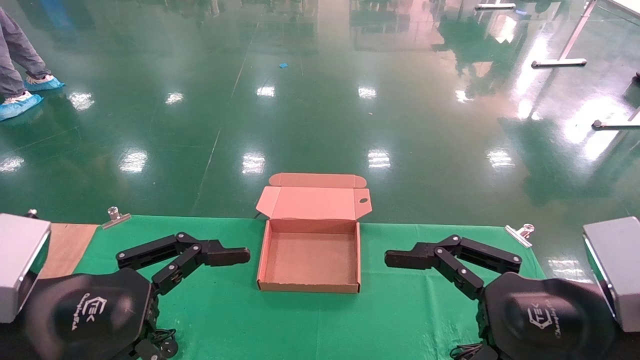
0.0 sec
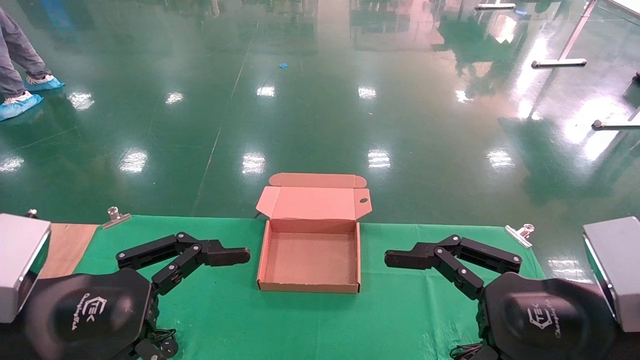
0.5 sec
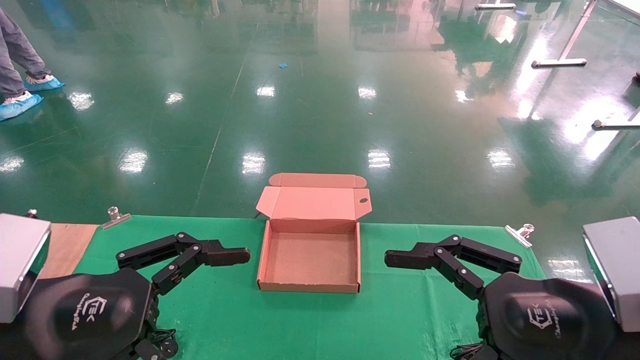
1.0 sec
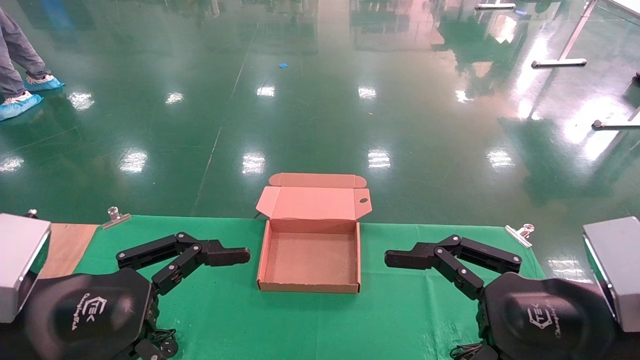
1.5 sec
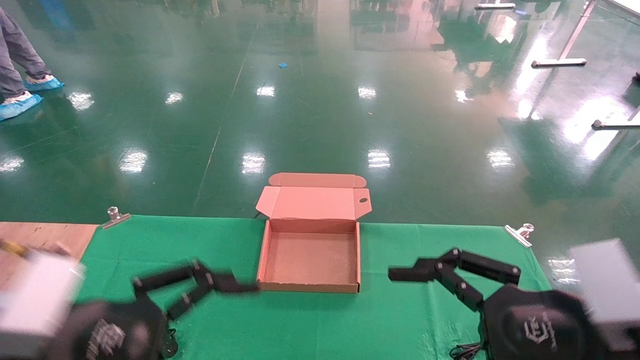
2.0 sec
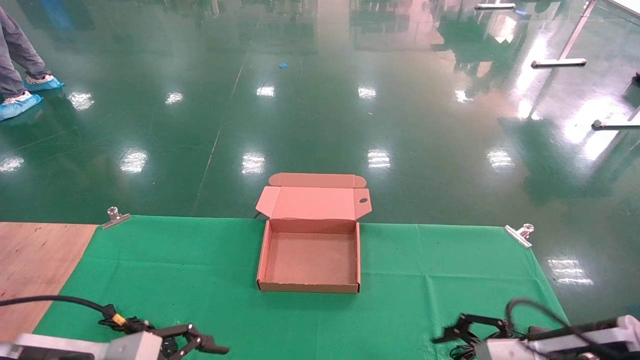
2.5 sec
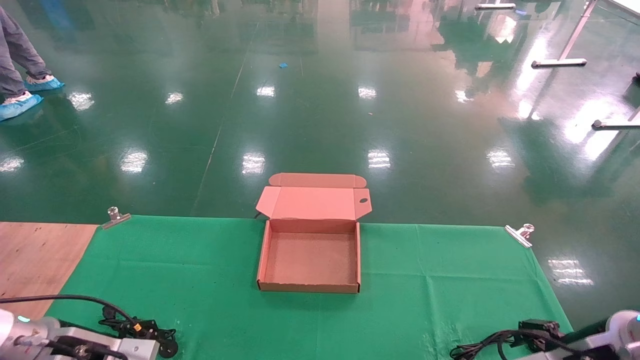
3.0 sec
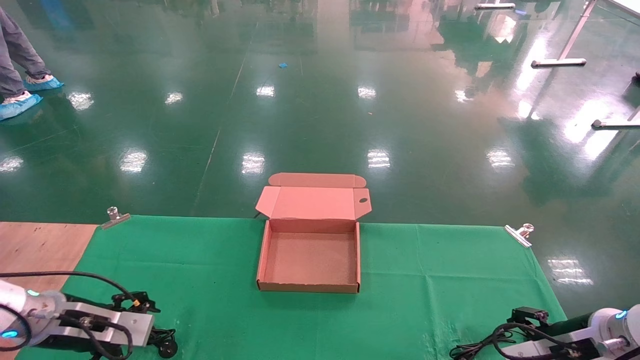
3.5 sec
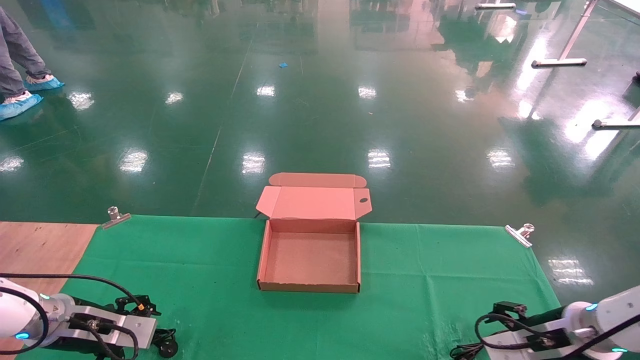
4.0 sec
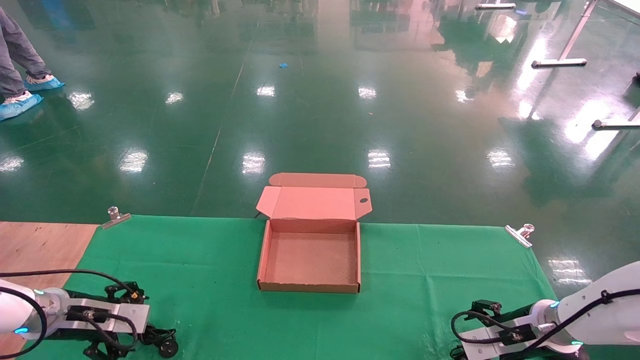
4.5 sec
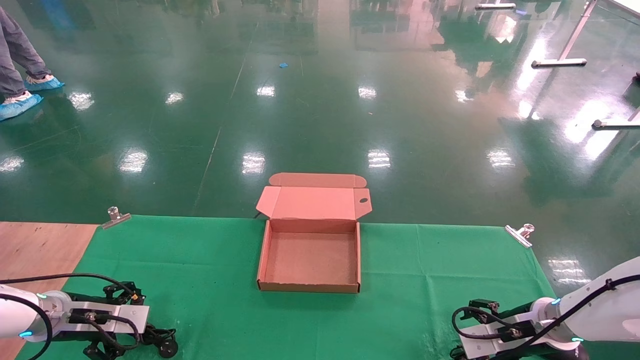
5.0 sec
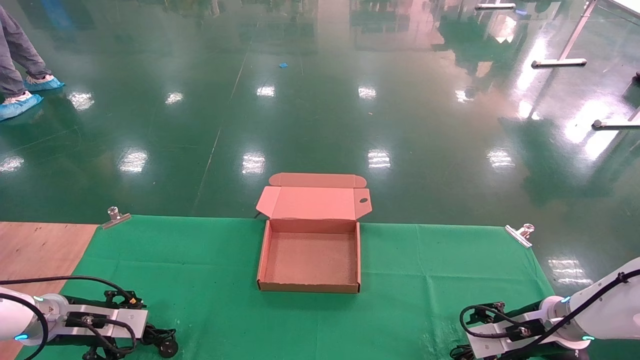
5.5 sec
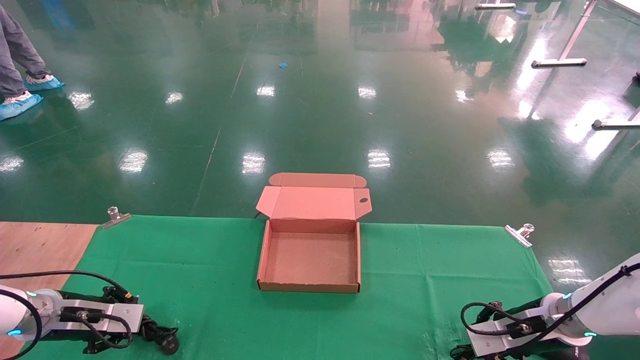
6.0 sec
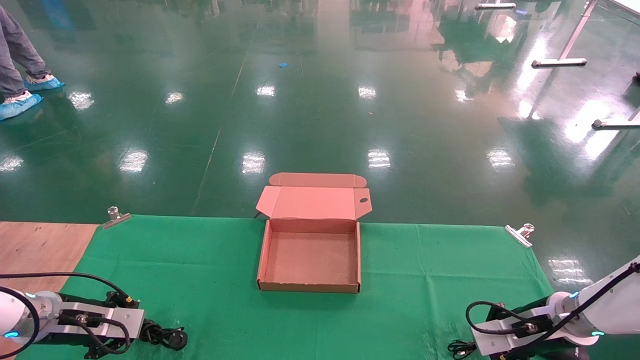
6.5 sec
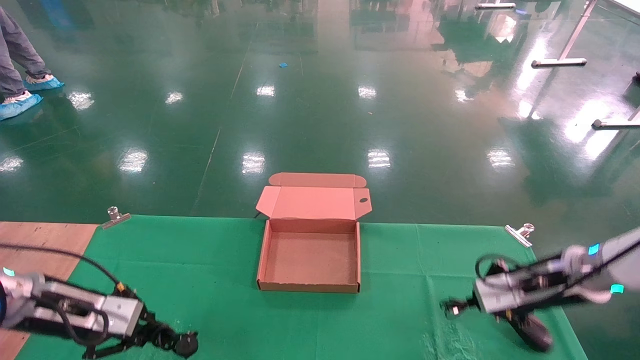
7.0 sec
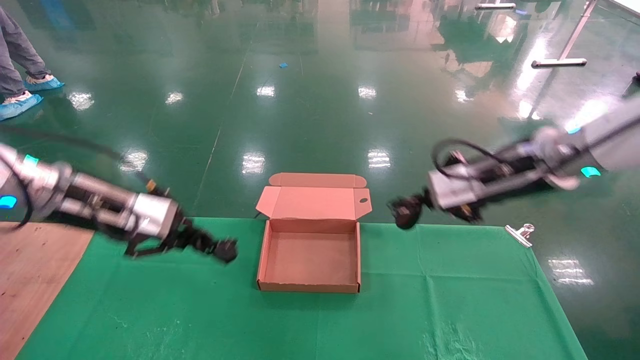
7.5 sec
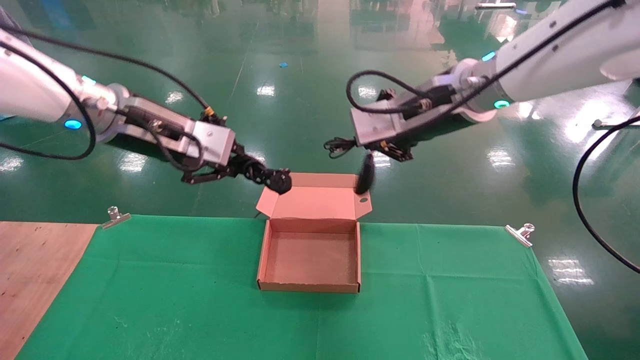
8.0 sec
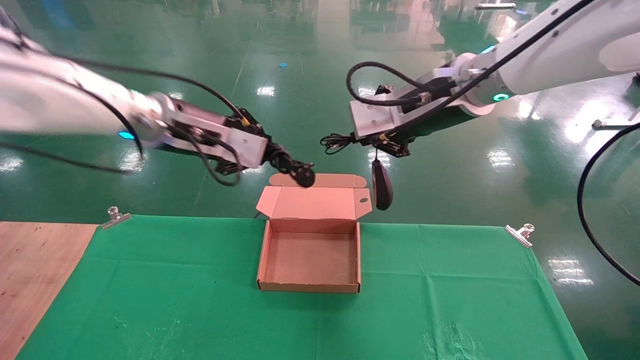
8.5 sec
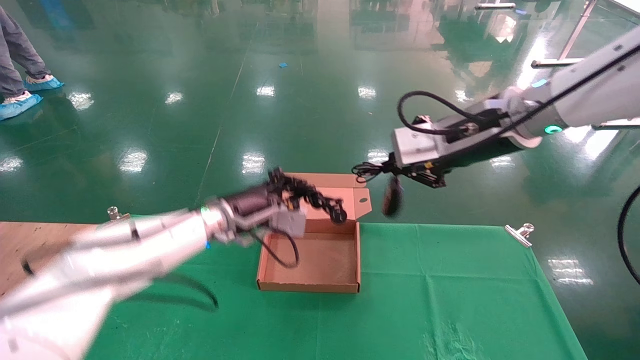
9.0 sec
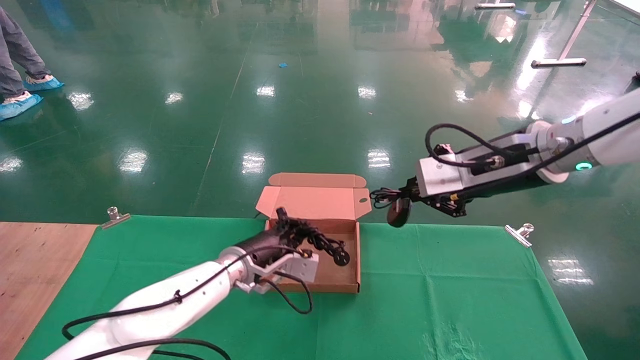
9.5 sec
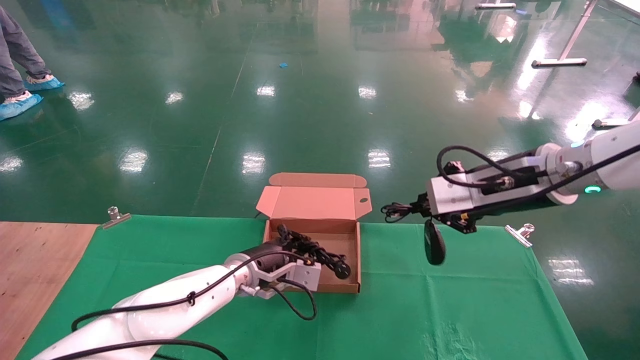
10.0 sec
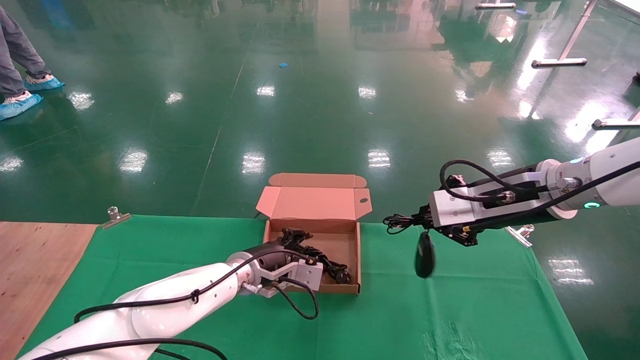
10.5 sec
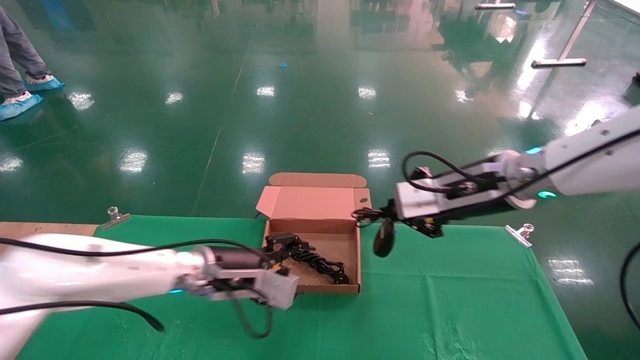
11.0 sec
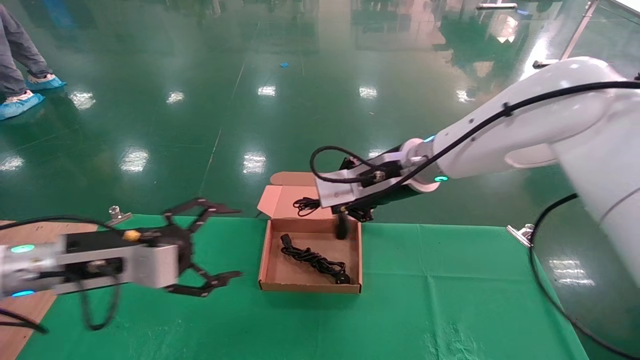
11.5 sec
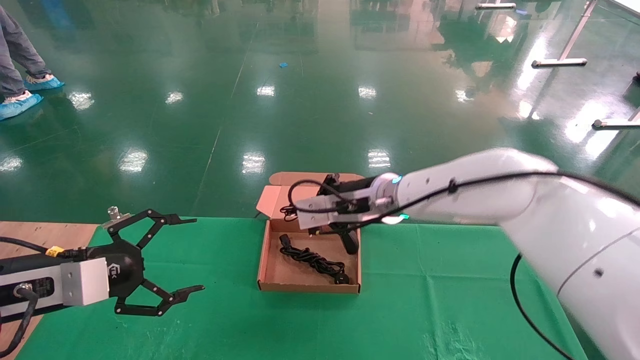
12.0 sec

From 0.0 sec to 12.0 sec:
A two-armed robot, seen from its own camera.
Step, from 2.0 sec to 7.0 sec: Grab and lift both the mouse and power cord from the accessory packaging area at the same time.
From 0.0 sec to 2.0 sec: The grippers stay close to where they were, moving slightly.
From 2.0 sec to 4.0 sec: The right gripper shifts roughly 25 cm forward, downward and to the right. Meanwhile the left gripper is displaced forward, downward and to the left by some 25 cm.
From 4.0 sec to 6.0 sec: The left gripper closes up. Meanwhile the right gripper closes up.
From 6.0 sec to 8.0 sec: The left gripper travels upward and to the right by roughly 35 cm; the right gripper goes roughly 40 cm upward and to the left, and closes its fingers.
From 8.0 sec to 10.0 sec: The right gripper travels to the right and downward by some 15 cm; the left gripper moves downward and to the right, about 30 cm.
From 10.0 sec to 12.0 sec: The left gripper goes roughly 30 cm to the left and backward, and opens its fingers, while the right gripper travels to the left and forward by approximately 20 cm.

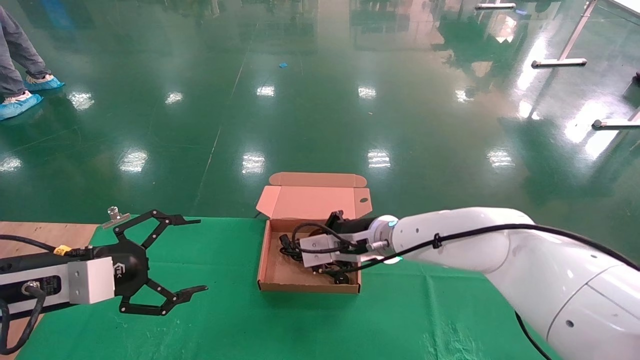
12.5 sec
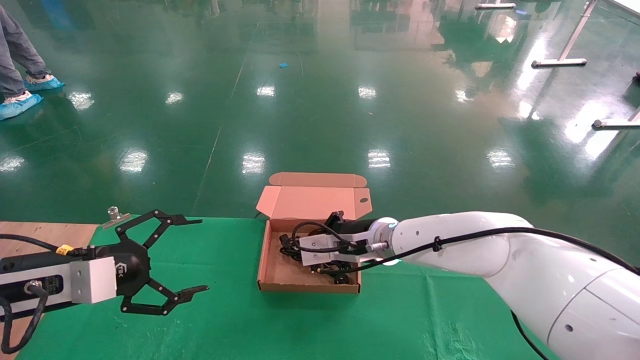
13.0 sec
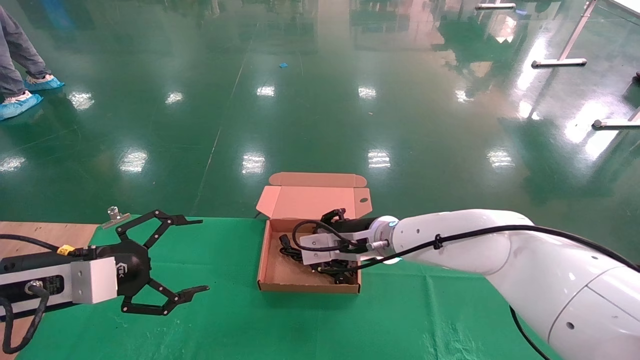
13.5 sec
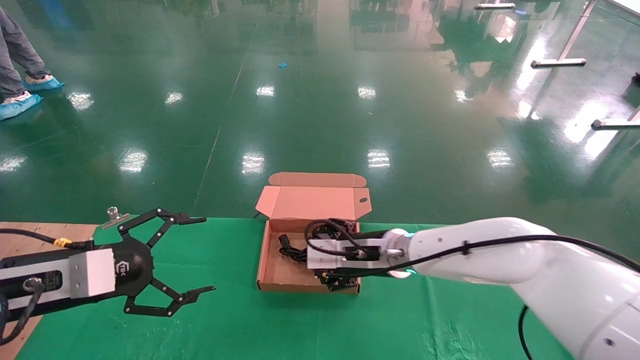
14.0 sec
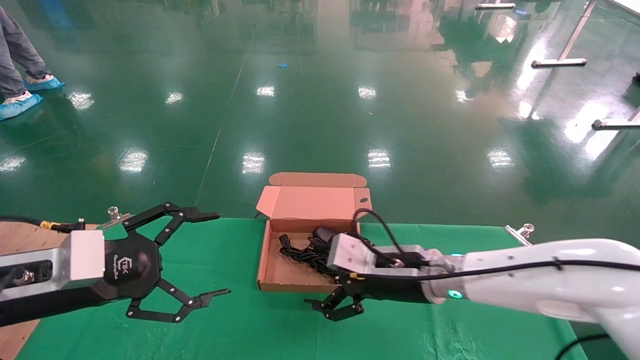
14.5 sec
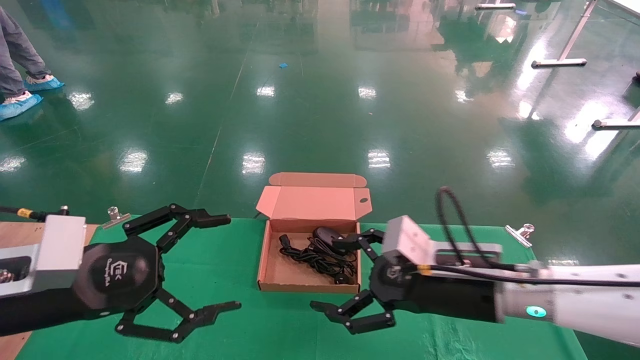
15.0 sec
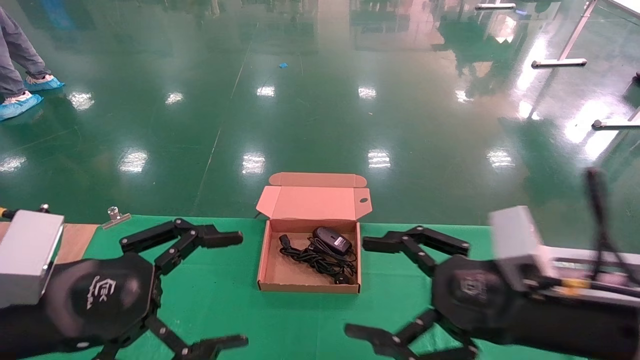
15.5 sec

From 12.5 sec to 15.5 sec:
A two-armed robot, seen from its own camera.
From 12.5 sec to 14.0 sec: The right gripper opens its fingers.
From 14.0 sec to 15.5 sec: The left gripper goes some 10 cm backward and to the right; the right gripper shifts roughly 25 cm backward and to the right.

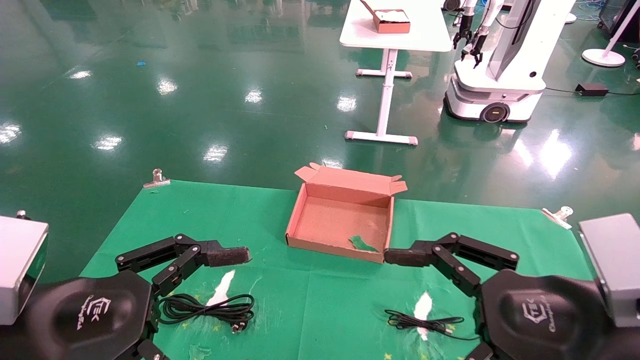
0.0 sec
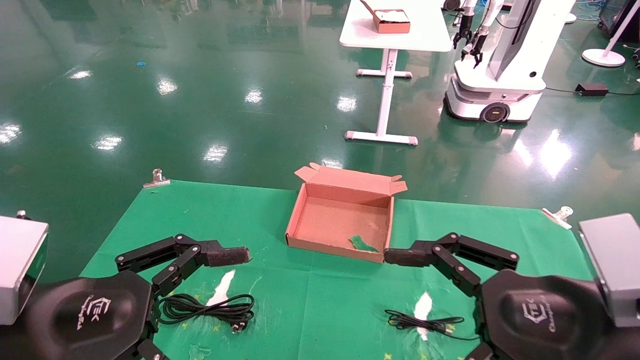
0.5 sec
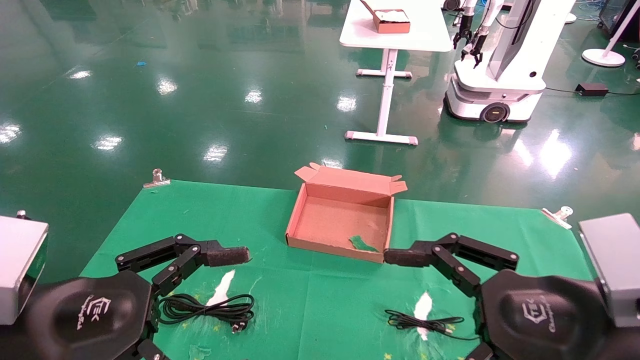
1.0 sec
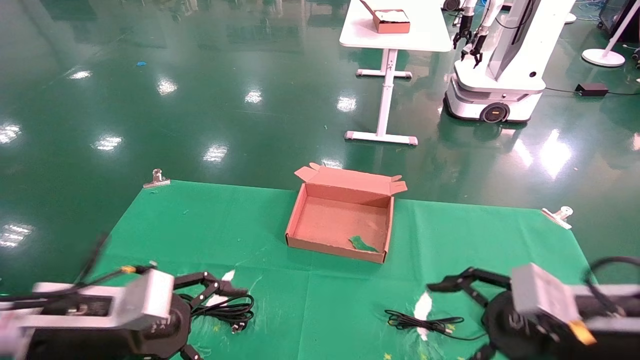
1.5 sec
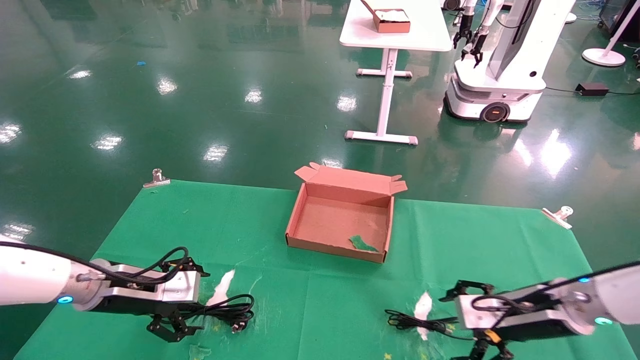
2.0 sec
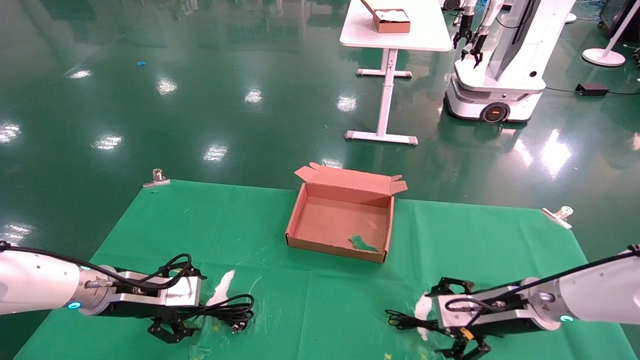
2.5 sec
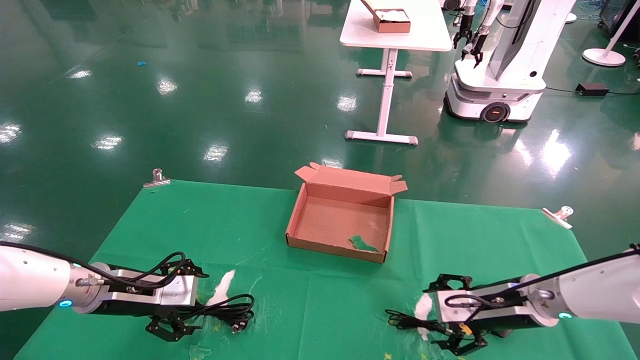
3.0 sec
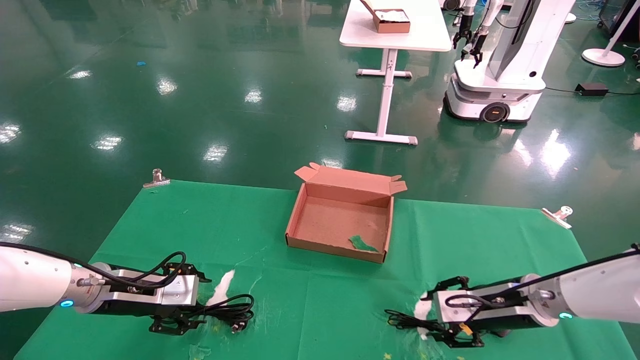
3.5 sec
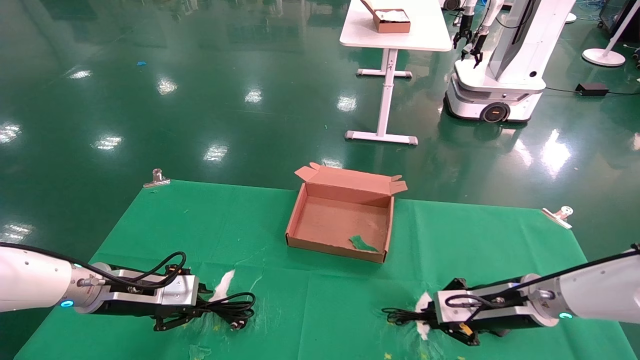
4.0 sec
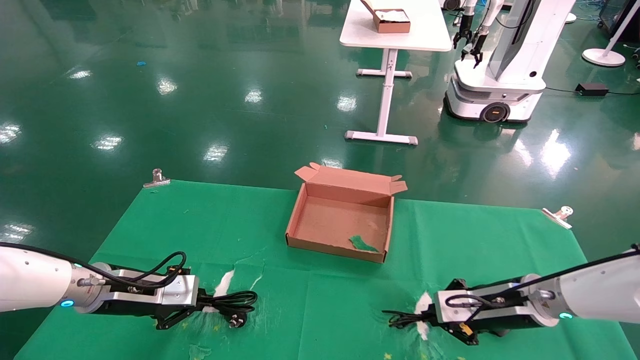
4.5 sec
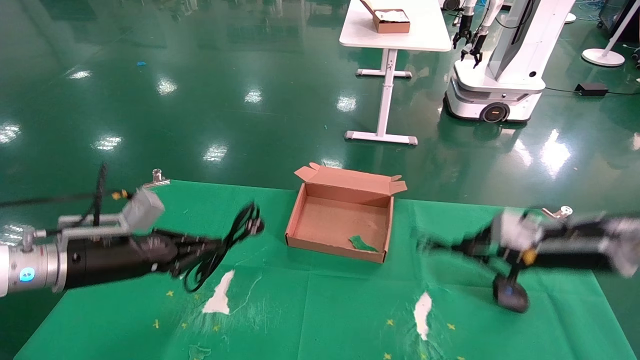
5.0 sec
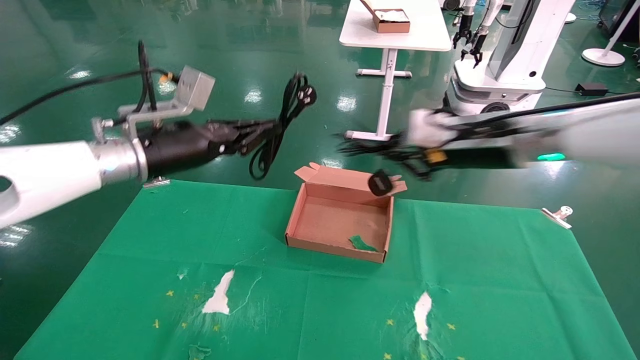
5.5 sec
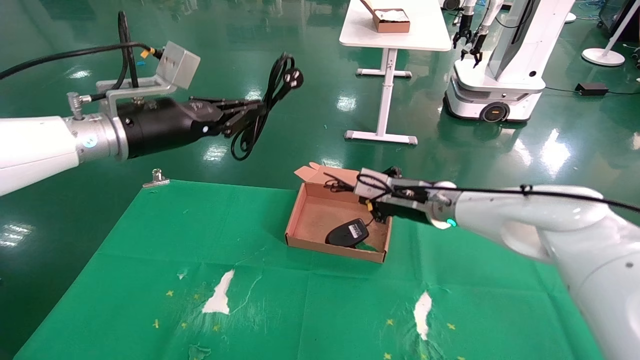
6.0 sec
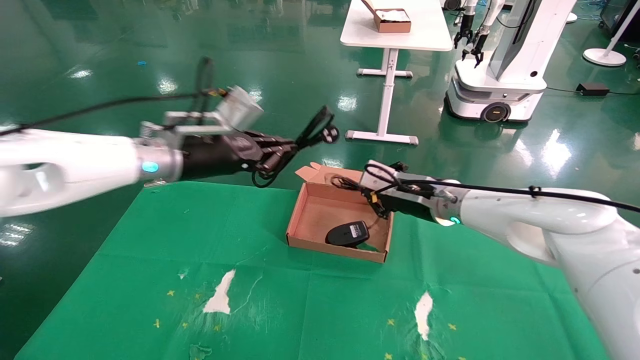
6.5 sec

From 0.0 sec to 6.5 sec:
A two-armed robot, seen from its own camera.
Step, from 1.5 sec to 4.0 sec: Grab and lift both the mouse and power cord from the accessory packaging area at the same time.
From 0.0 sec to 2.0 sec: The left gripper shifts about 20 cm forward. Meanwhile the right gripper goes roughly 20 cm forward and downward.
From 2.0 sec to 4.5 sec: The right gripper closes; the left gripper closes.
From 4.5 sec to 6.5 sec: The left gripper shifts some 25 cm upward and to the right, while the right gripper goes some 20 cm upward, to the left and forward.
